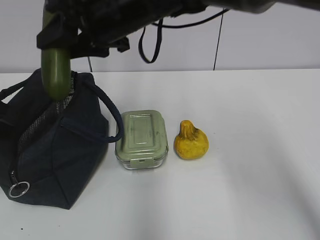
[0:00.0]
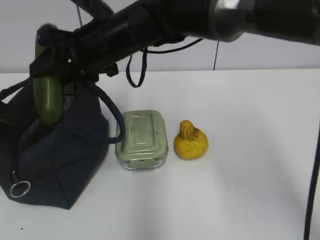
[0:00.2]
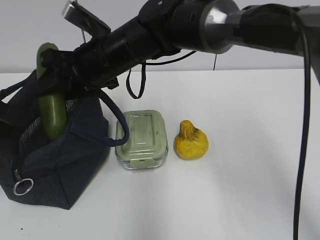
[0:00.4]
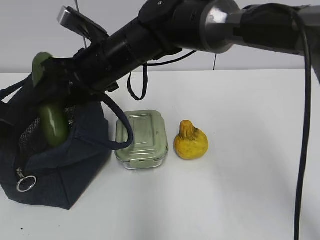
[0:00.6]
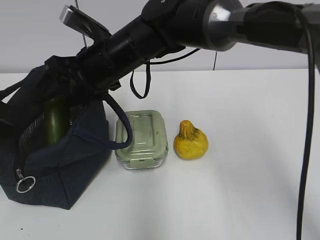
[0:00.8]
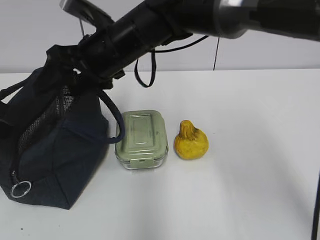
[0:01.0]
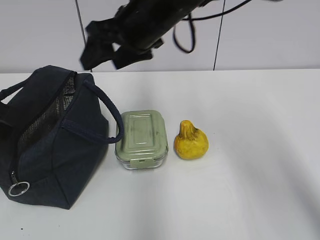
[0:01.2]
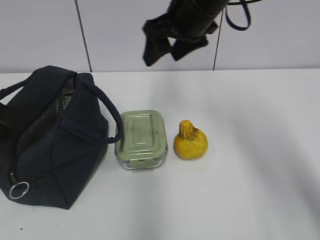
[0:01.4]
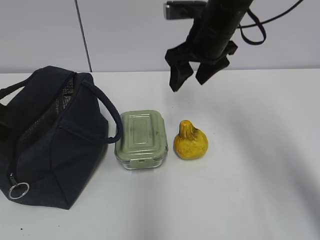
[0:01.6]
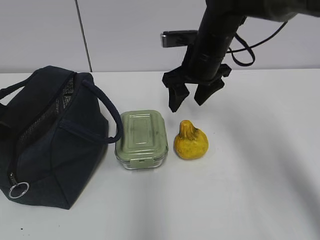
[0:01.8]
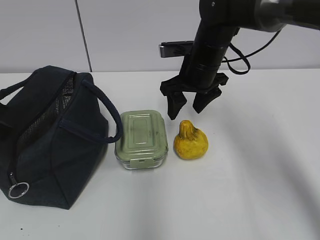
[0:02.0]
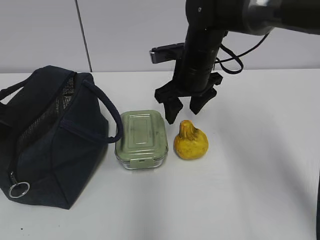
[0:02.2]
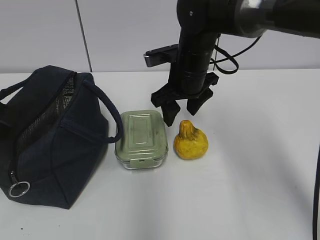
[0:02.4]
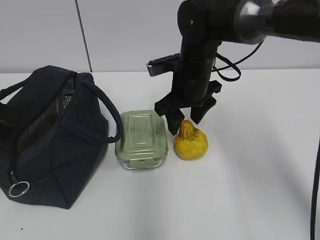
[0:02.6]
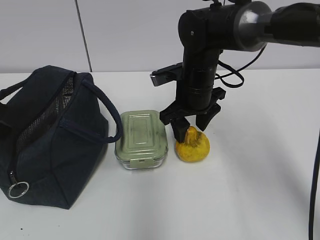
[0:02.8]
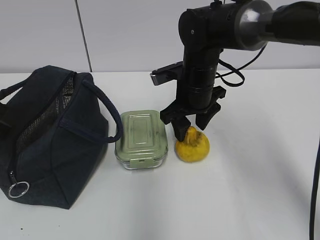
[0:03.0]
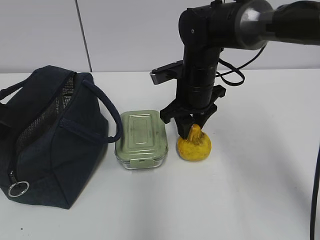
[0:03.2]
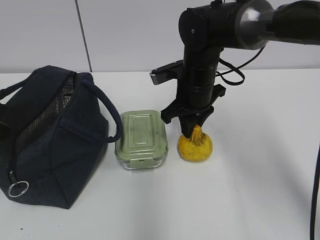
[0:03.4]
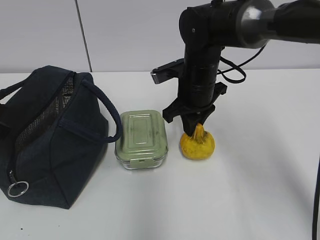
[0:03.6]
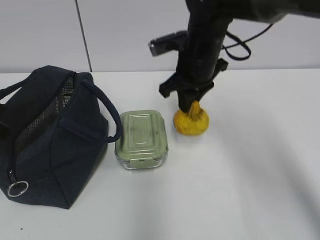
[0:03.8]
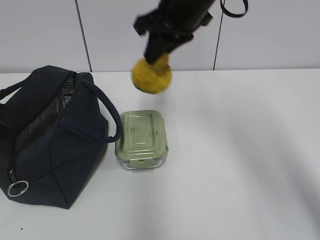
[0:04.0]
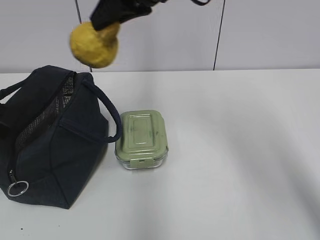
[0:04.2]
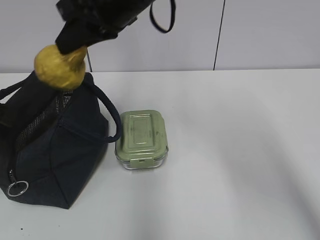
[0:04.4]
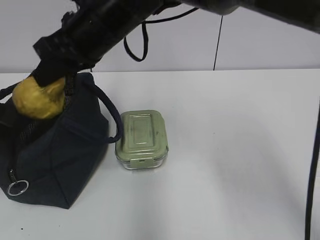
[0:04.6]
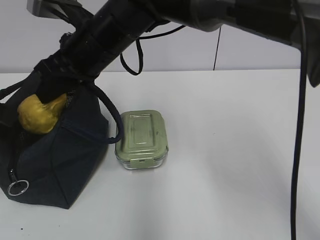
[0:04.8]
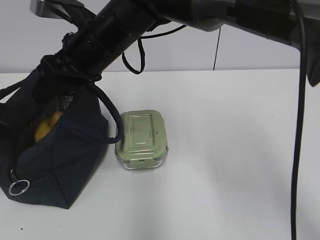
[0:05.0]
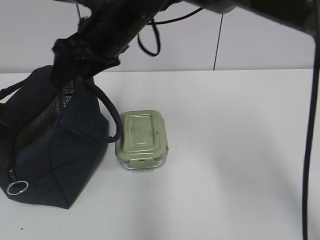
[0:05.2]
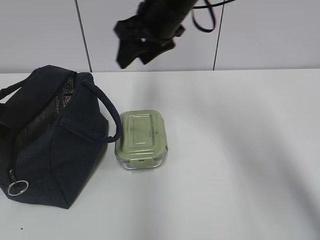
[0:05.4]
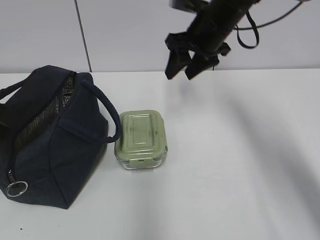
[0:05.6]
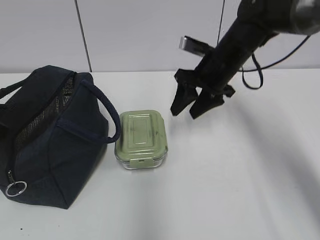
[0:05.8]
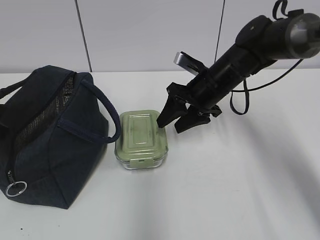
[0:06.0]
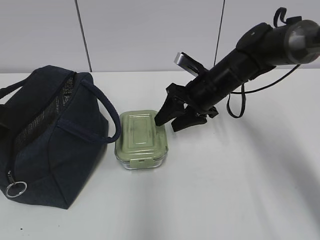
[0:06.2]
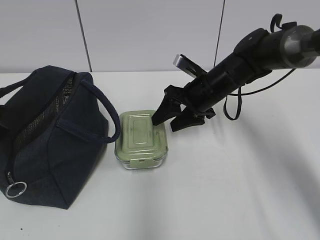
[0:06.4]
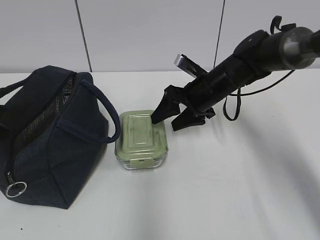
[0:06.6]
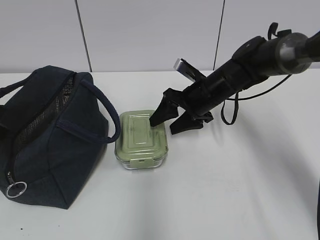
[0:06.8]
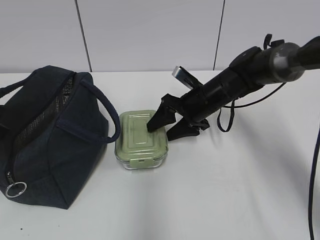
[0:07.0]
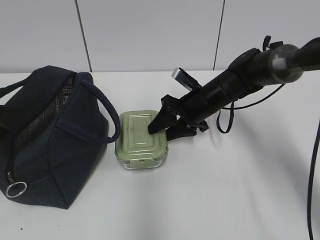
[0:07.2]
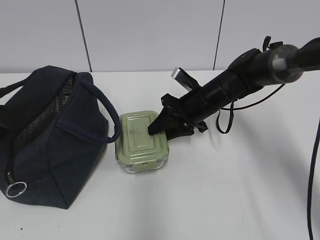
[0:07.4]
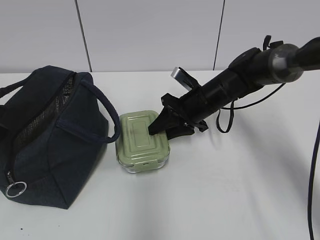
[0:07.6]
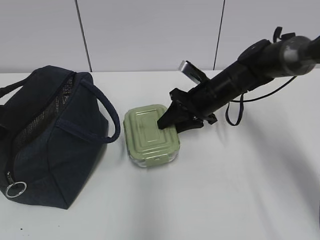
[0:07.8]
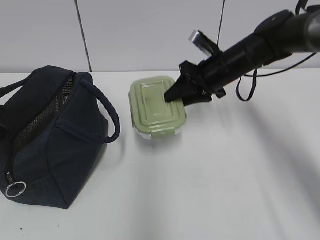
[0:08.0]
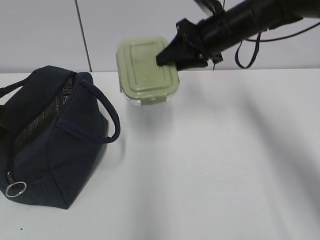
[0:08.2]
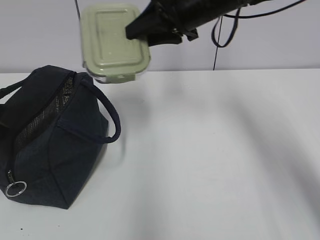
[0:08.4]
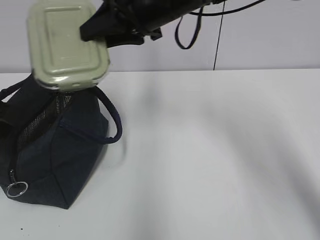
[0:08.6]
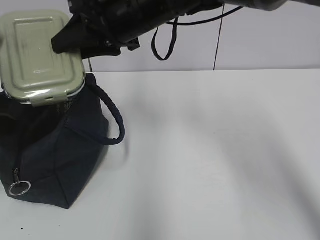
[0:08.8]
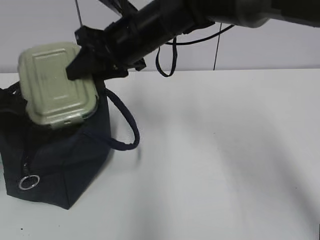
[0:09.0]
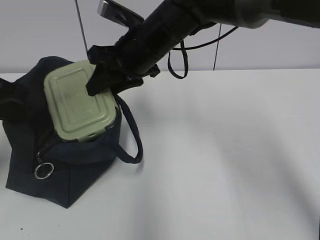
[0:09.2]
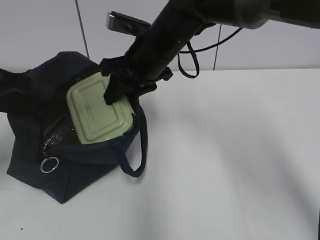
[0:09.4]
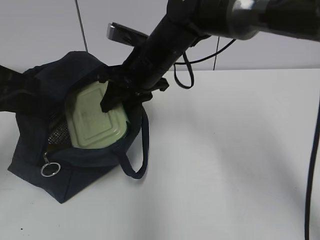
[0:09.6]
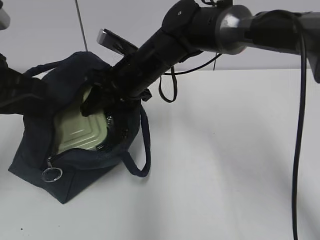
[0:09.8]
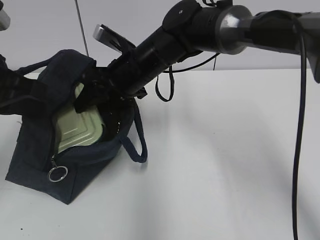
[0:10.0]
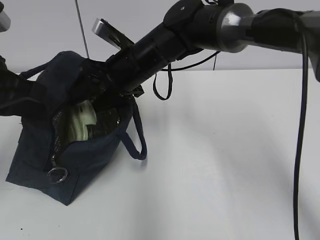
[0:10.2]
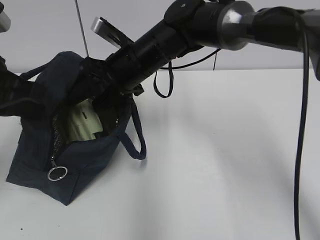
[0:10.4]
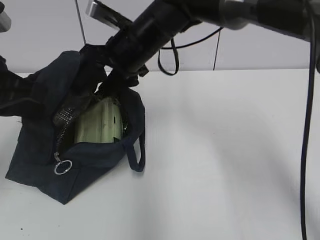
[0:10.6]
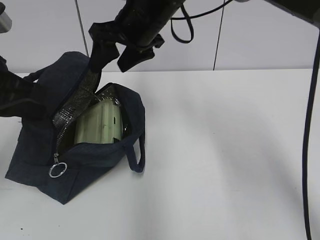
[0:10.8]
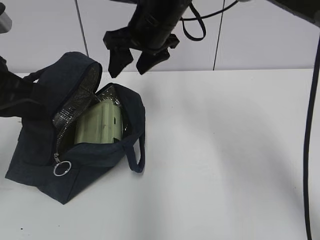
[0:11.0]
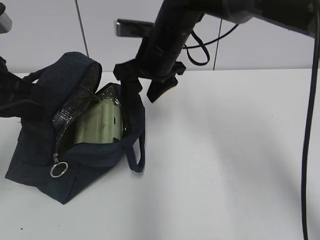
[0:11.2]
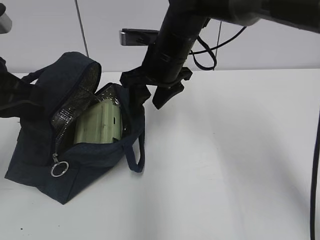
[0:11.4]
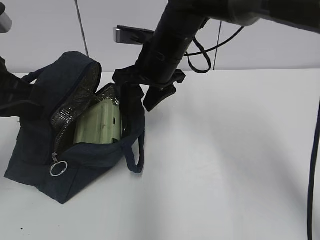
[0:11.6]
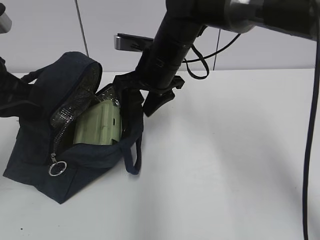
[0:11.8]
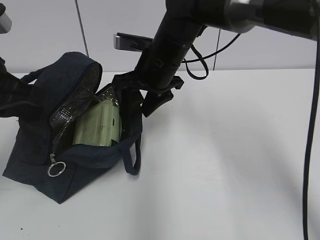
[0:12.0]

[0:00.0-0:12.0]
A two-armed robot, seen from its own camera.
Step, 0:00.4 to 0:00.8: Place it into the bag with your right hand.
Step, 0:01.0 to 0:03.2: Grab the pear with your right hand.
Step, 0:03.6 to 0:05.0: Place it into the bag with your right hand.
Step, 0:05.2 to 0:07.6: Grab the lunch box with your right hand.
0:00.0 to 0:01.6: The right gripper shifts about 15 cm to the right, and opens its fingers.
0:01.6 to 0:03.0: The right gripper moves downward, some 10 cm.
0:03.0 to 0:04.4: The right gripper travels upward and to the left by approximately 20 cm, and closes.
0:04.4 to 0:06.0: The right gripper travels downward and to the right by roughly 20 cm, and opens.
0:06.0 to 0:07.6: The right gripper changes place by some 5 cm.
0:07.6 to 0:09.0: The right gripper travels upward and to the left by about 20 cm.
0:09.0 to 0:10.4: The right gripper goes some 5 cm downward, and opens.

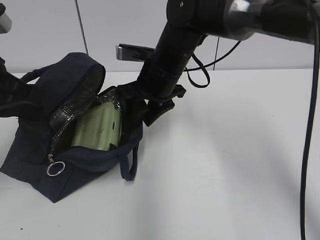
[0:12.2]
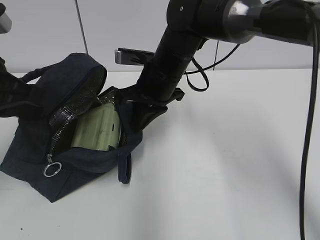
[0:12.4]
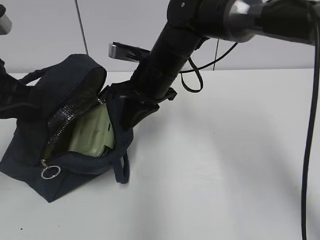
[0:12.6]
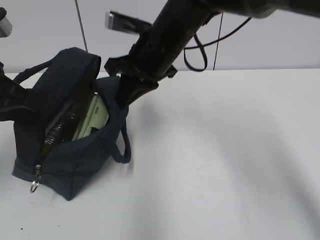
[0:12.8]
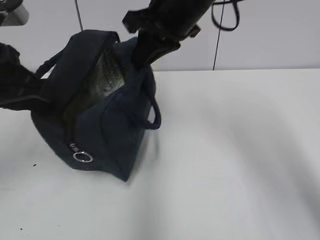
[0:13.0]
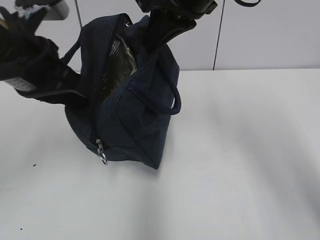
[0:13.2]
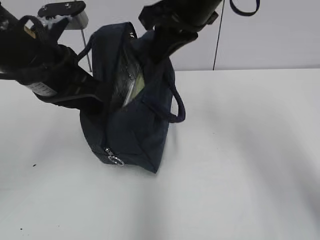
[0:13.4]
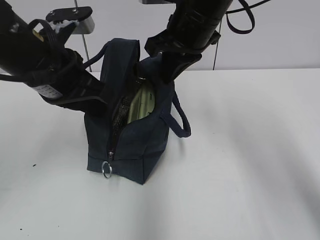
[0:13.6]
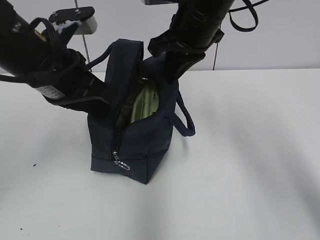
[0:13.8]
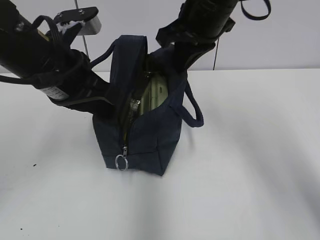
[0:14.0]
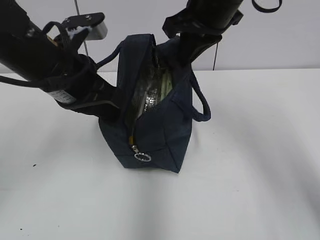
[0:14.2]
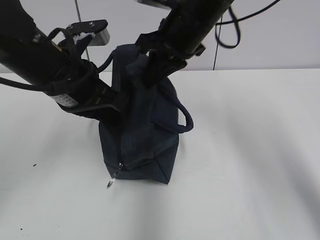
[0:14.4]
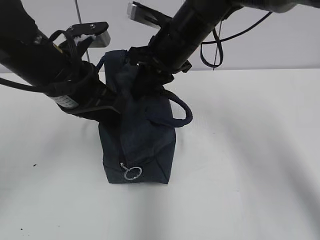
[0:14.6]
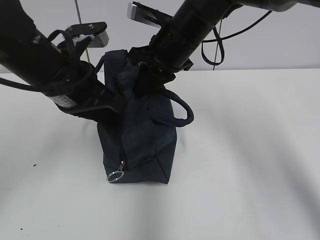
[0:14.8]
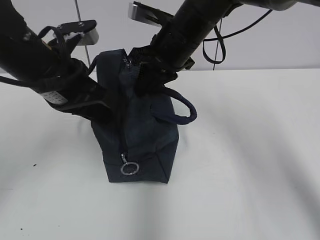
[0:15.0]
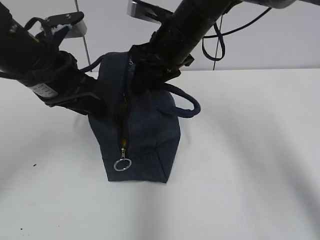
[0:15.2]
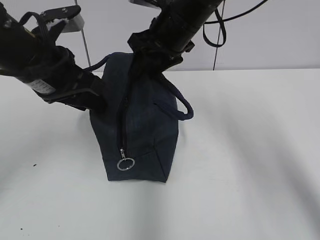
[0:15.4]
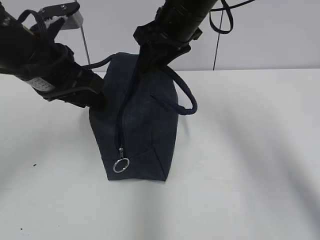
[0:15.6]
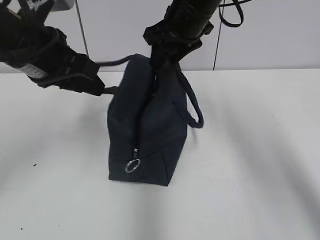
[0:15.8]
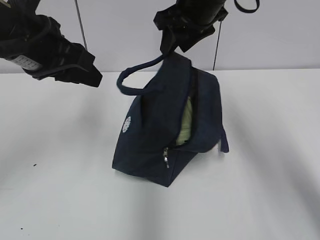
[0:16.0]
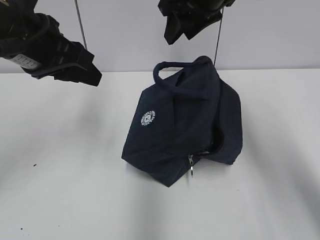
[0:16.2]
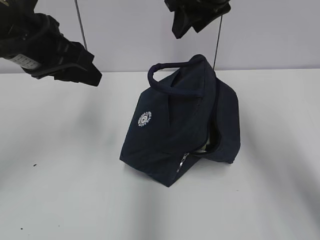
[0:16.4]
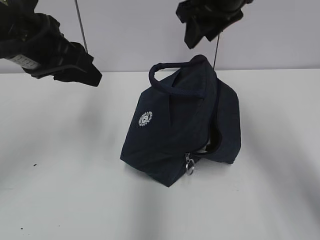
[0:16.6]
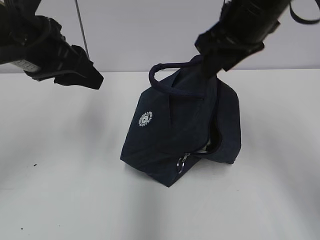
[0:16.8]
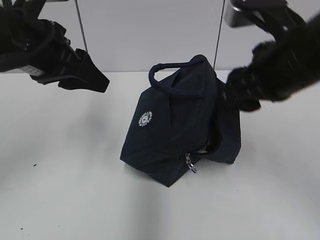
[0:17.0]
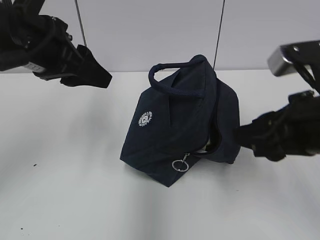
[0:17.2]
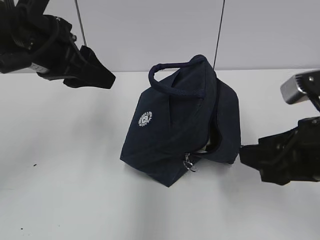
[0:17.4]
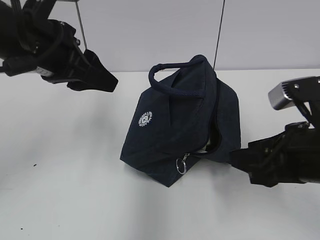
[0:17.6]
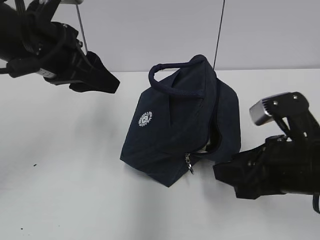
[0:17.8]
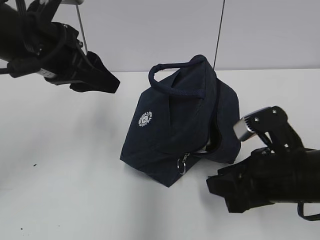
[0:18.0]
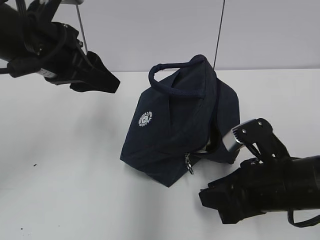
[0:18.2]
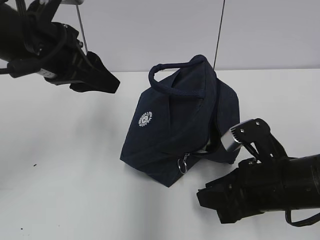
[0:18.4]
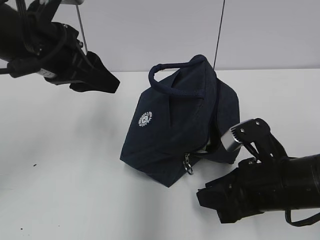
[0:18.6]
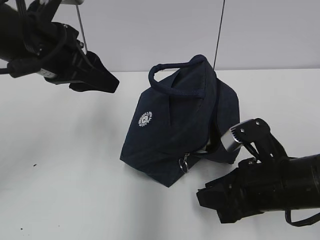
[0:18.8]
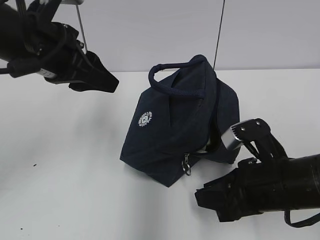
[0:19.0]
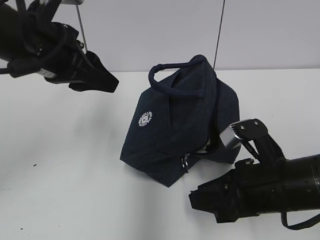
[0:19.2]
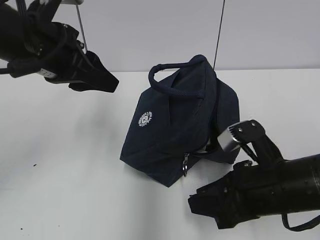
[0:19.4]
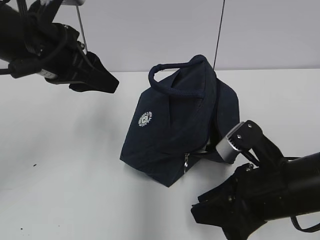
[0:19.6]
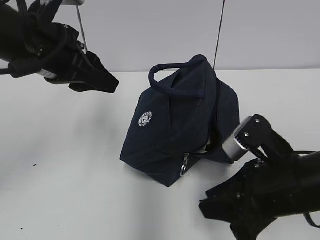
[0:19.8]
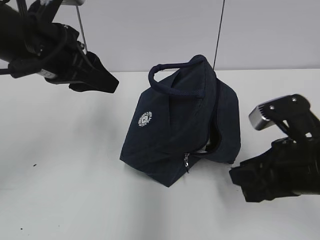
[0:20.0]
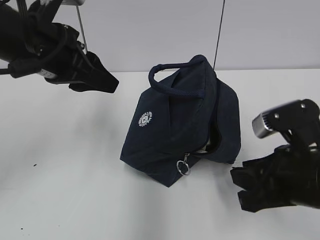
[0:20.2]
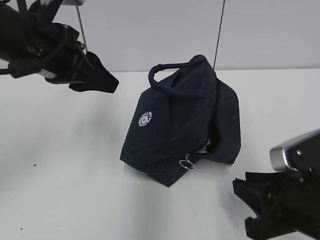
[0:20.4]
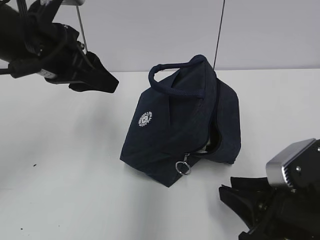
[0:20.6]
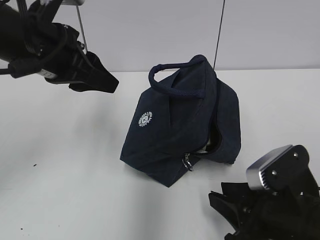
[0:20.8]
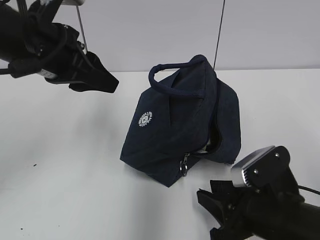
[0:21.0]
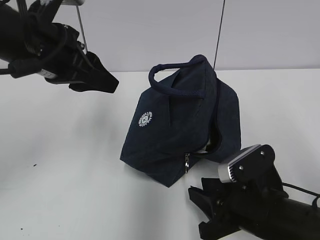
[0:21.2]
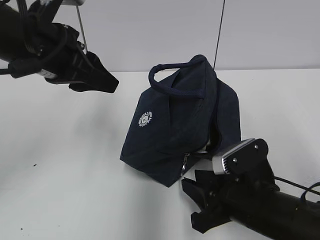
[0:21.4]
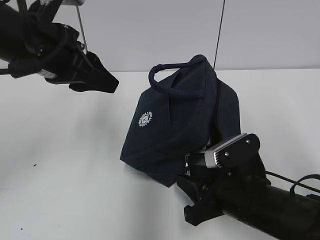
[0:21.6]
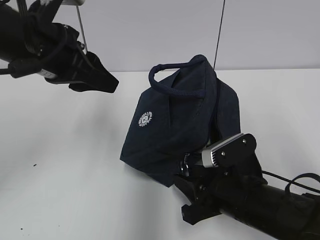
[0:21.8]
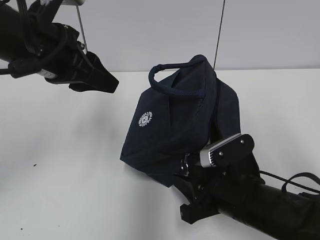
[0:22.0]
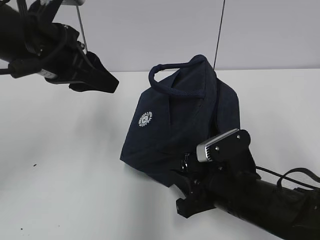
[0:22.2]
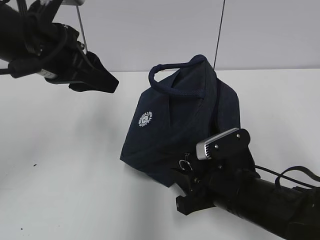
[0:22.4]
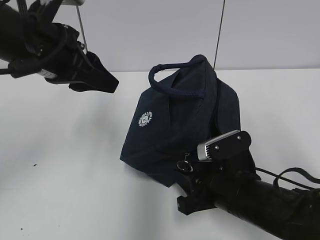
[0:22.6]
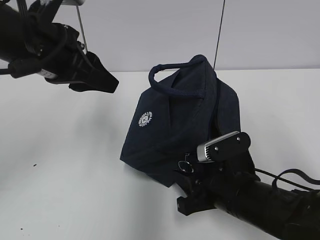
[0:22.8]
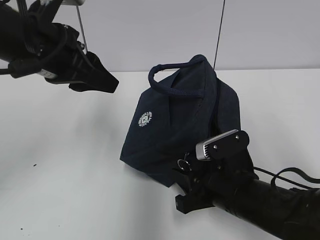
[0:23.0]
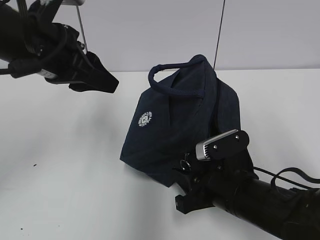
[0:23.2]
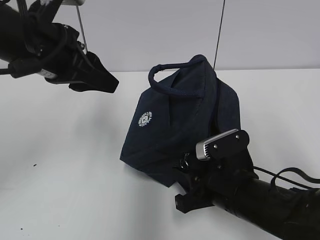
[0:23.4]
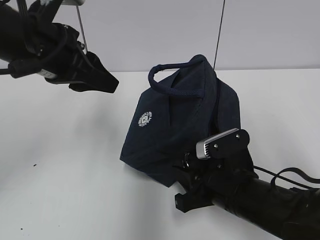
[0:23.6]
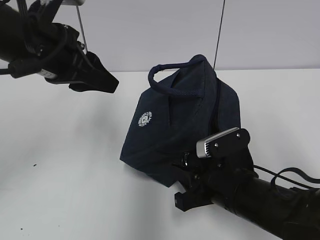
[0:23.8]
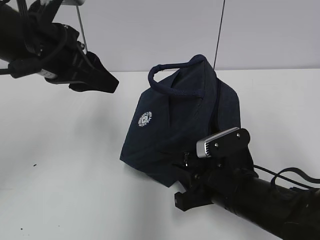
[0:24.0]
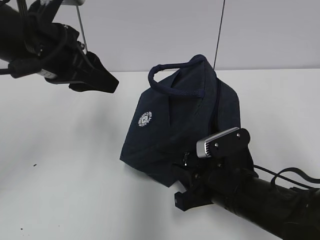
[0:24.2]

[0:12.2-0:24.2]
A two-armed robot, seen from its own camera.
Step, 0:12.6 to 0:15.2: Move the lunch bag to the right.
0:12.2 to 0:13.8: The left gripper goes about 10 cm to the right. The right gripper is displaced upward and to the right by roughly 10 cm, and closes.
0:13.8 to 0:15.2: The left gripper opens. The right gripper changes place by some 5 cm, and opens.
0:15.2 to 0:16.6: The right gripper moves upward and to the right, about 10 cm.
0:16.6 to 0:18.2: The right gripper goes approximately 25 cm downward and backward.
0:18.2 to 0:19.8: There are only small adjustments of the grippers.
0:19.8 to 0:21.2: The right gripper shifts roughly 5 cm downward.
0:21.2 to 0:22.6: The grippers make only small movements.
0:22.6 to 0:24.2: Both grippers stay put.
